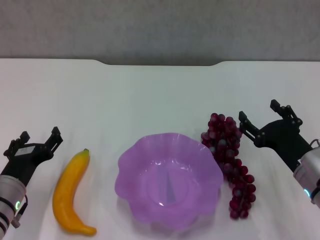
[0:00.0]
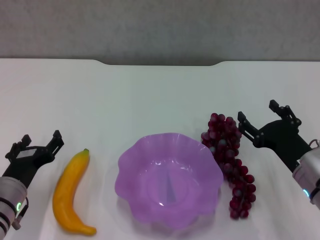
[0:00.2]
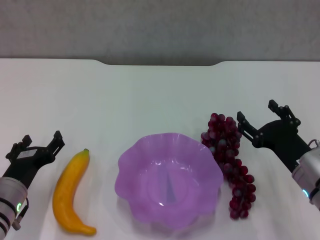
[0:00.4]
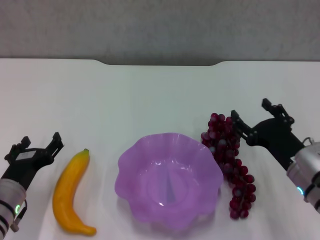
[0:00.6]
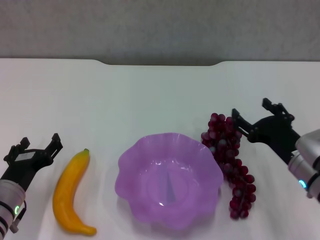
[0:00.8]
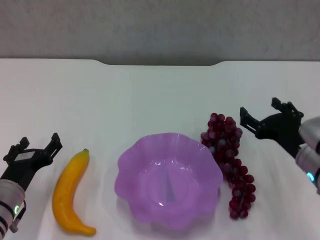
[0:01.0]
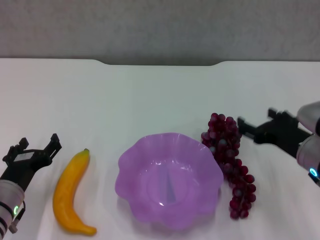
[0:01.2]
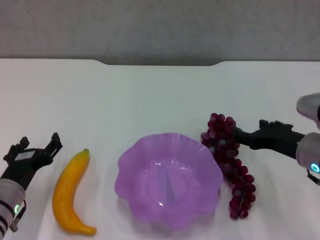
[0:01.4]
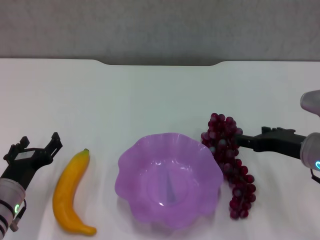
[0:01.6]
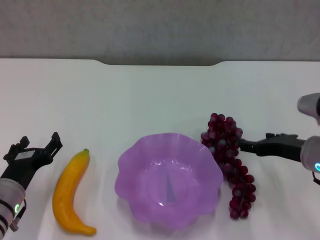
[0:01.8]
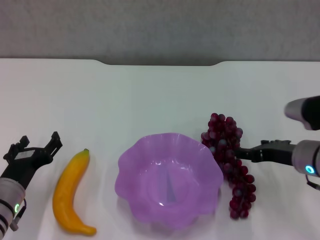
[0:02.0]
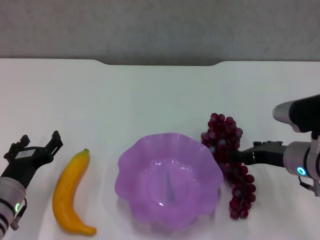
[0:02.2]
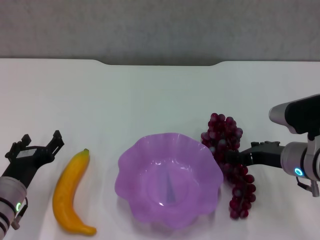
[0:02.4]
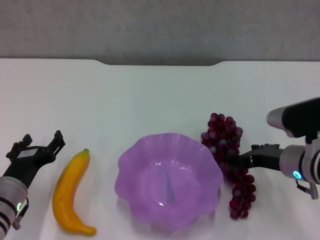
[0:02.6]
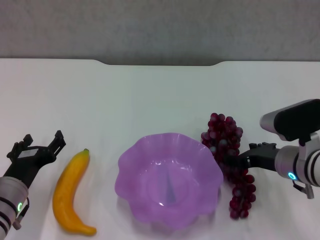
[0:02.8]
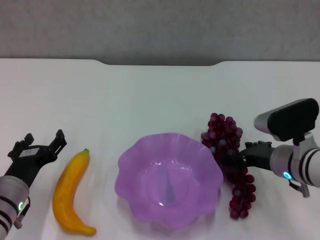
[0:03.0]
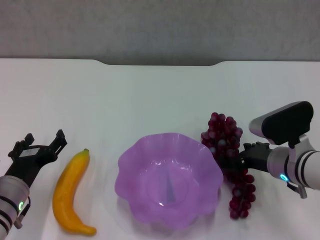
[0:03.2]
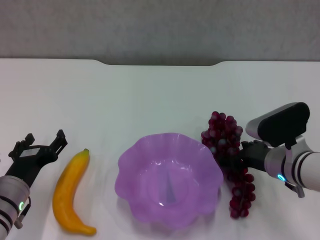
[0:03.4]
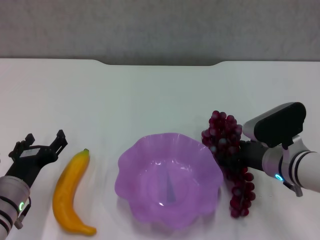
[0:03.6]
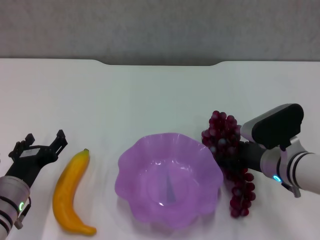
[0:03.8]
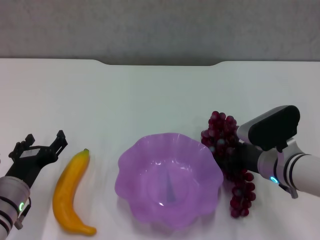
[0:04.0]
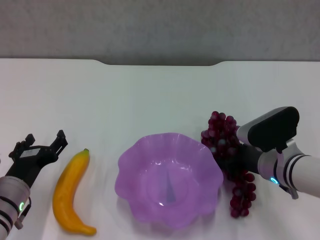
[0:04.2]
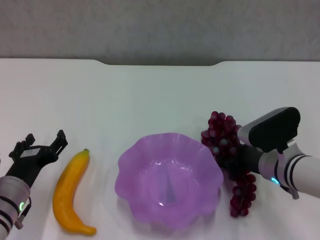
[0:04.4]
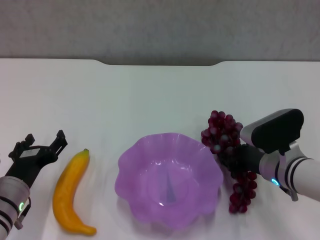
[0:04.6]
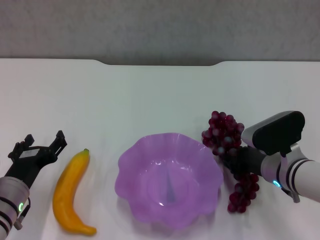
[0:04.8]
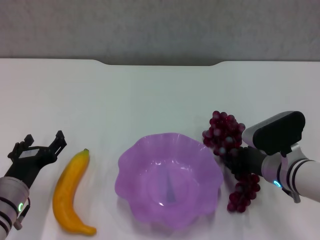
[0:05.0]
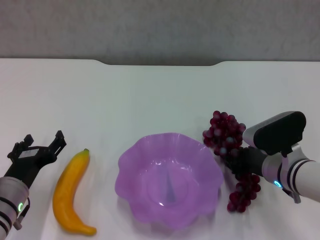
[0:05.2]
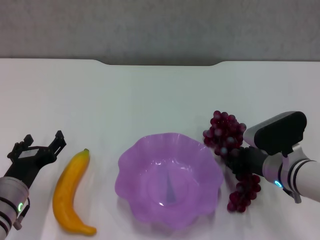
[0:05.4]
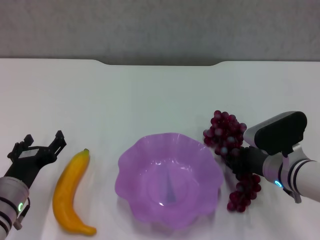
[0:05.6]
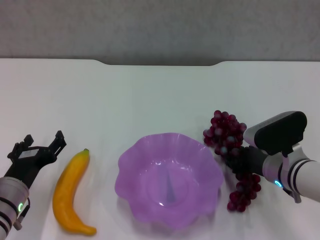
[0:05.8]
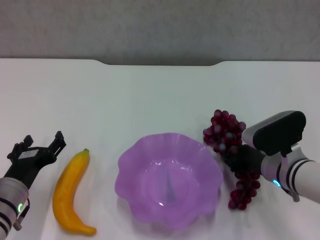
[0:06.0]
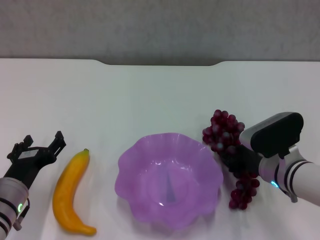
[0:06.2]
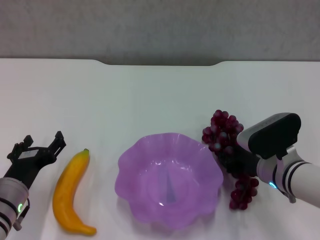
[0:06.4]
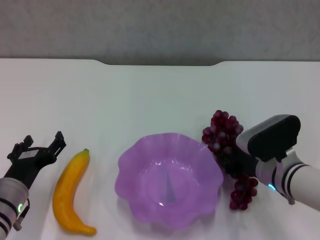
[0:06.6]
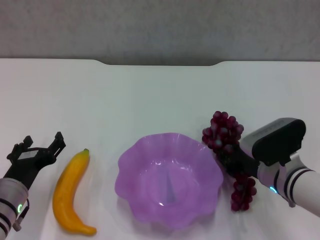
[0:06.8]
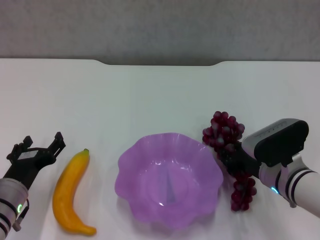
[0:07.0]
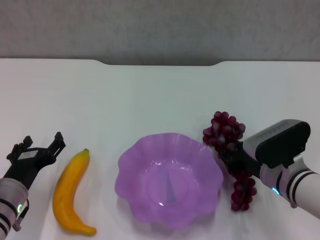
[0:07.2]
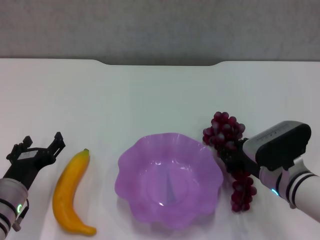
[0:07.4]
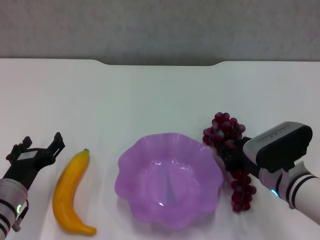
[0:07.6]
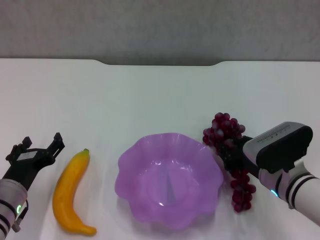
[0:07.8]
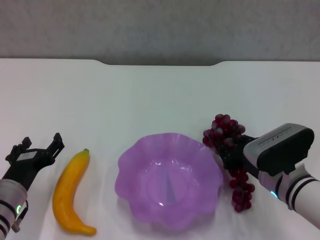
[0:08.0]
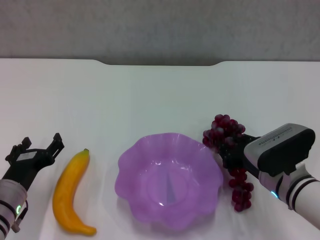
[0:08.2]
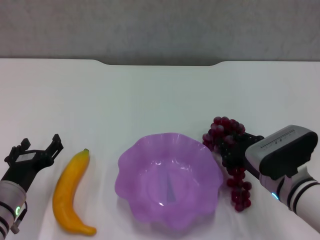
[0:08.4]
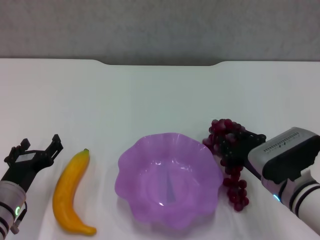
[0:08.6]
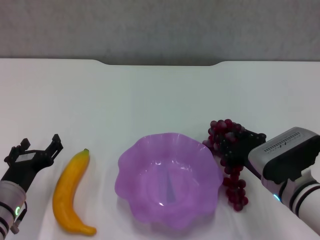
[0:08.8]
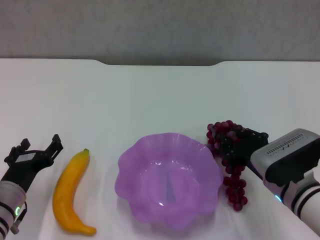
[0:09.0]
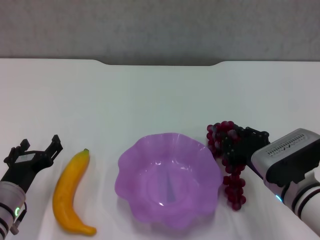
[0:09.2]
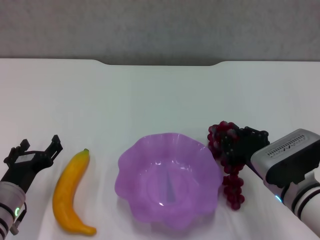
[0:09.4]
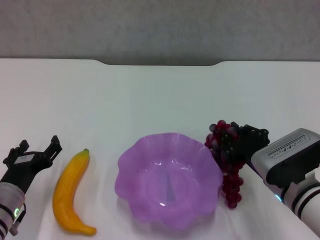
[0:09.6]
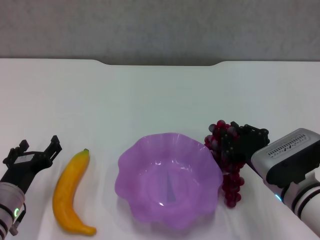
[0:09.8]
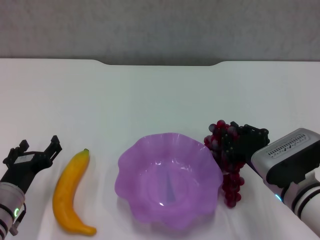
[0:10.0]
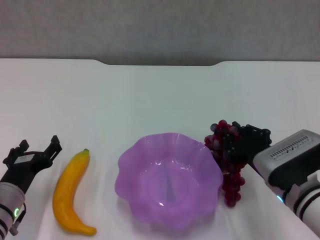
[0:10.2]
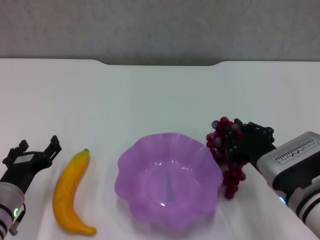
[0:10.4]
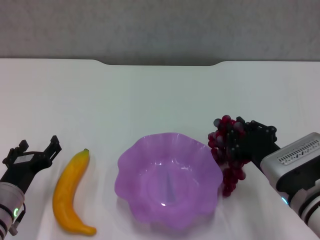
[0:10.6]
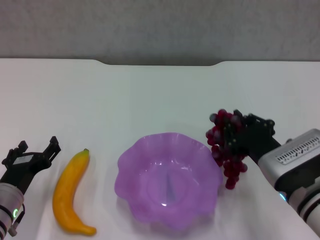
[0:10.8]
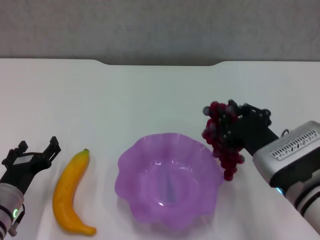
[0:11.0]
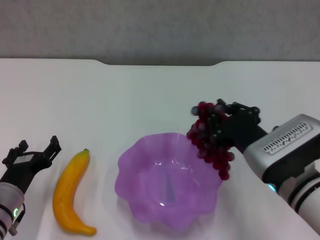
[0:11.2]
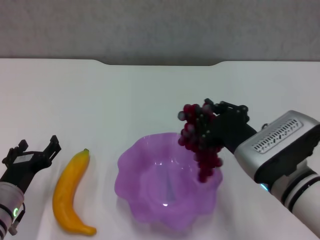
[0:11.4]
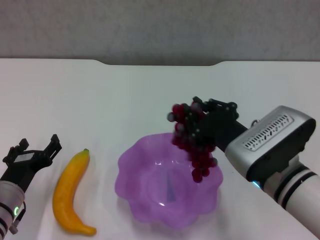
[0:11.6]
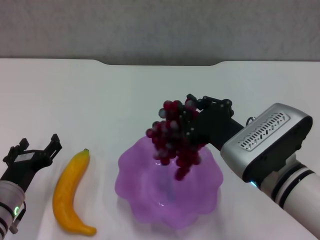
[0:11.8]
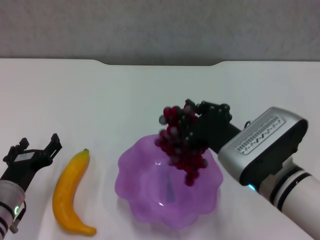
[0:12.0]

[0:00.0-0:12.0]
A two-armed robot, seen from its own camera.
Step, 0:00.0 to 0:05.2: Grasp the grape with right gripper.
0:00.0 to 0:01.6: The right gripper goes roughly 5 cm upward.
0:01.6 to 0:03.0: The right gripper changes place by roughly 5 cm.
0:03.0 to 0:04.4: There are only small adjustments of the grippers.
0:04.4 to 0:06.0: The right gripper closes up.
0:06.0 to 0:07.6: There are only small adjustments of the grippers.
0:07.6 to 0:10.4: The grippers move only a little.
0:10.4 to 0:12.0: The right gripper moves upward and to the left, approximately 10 cm.

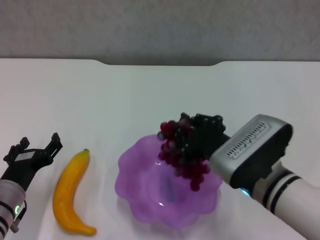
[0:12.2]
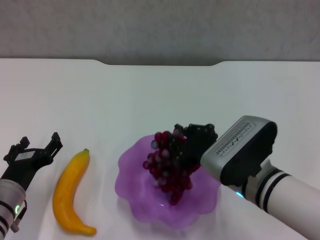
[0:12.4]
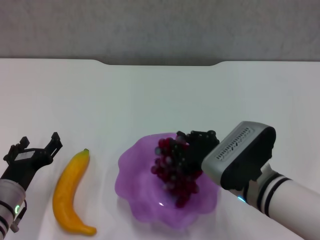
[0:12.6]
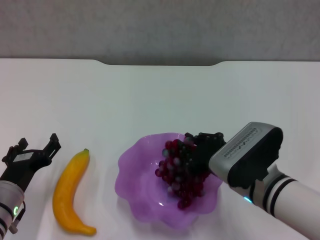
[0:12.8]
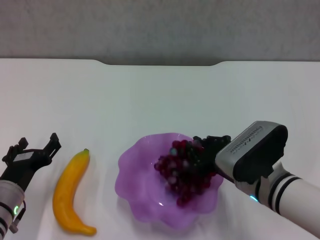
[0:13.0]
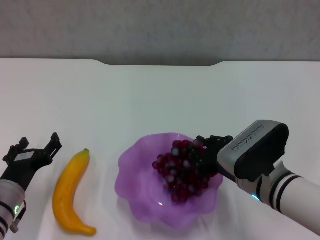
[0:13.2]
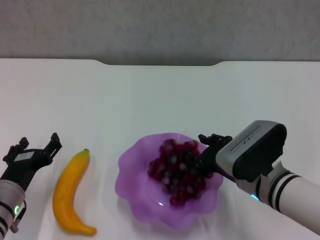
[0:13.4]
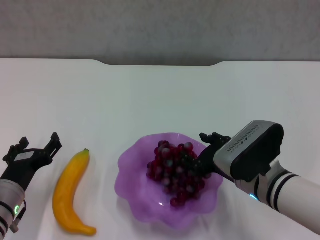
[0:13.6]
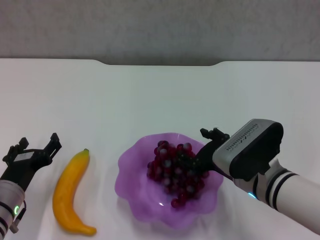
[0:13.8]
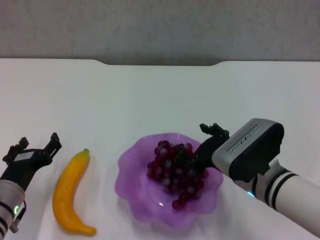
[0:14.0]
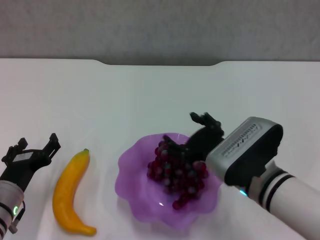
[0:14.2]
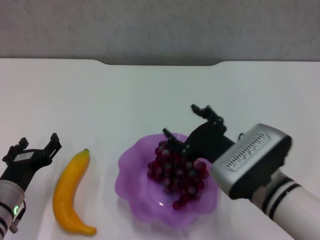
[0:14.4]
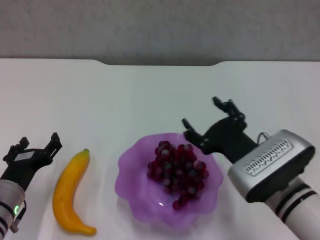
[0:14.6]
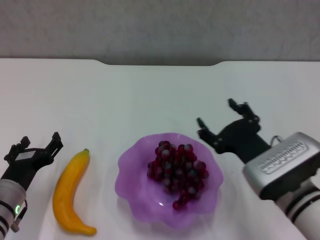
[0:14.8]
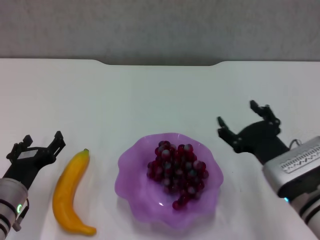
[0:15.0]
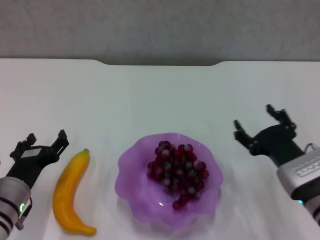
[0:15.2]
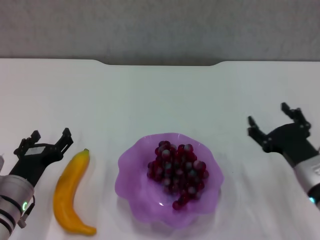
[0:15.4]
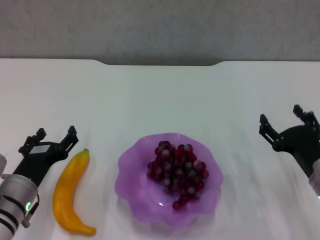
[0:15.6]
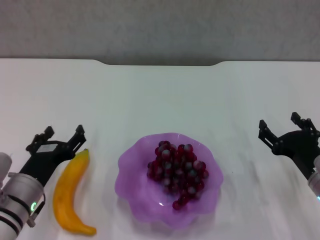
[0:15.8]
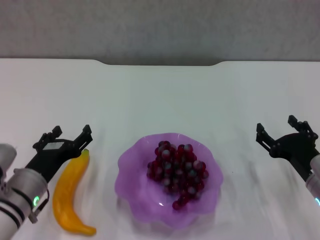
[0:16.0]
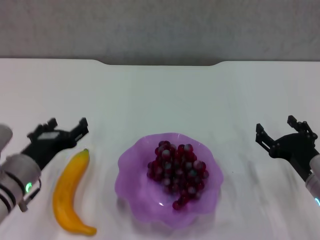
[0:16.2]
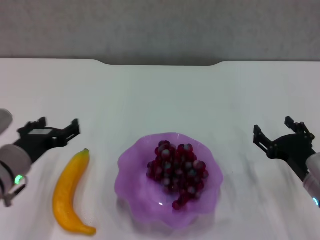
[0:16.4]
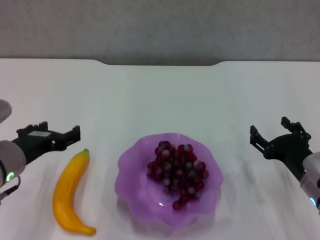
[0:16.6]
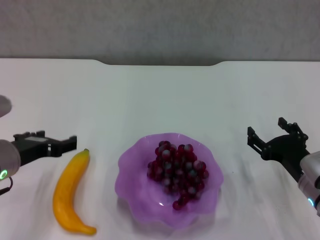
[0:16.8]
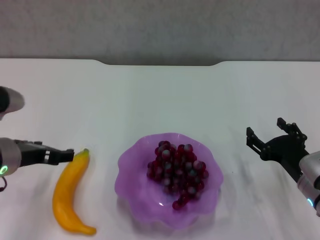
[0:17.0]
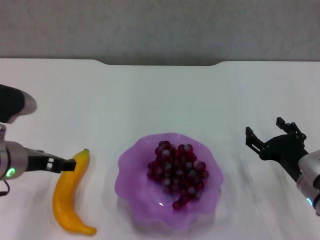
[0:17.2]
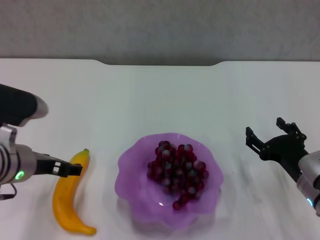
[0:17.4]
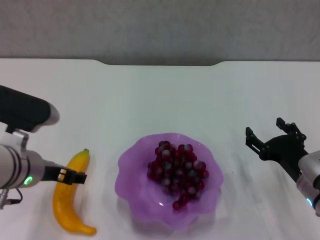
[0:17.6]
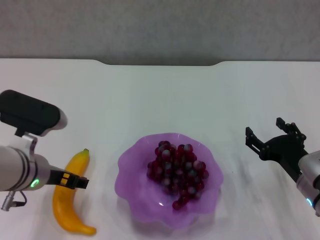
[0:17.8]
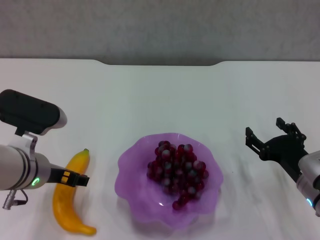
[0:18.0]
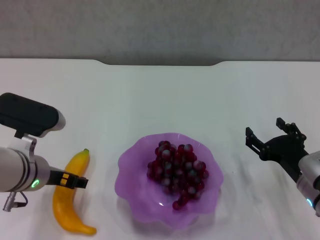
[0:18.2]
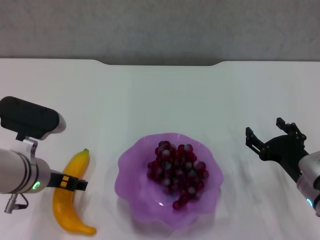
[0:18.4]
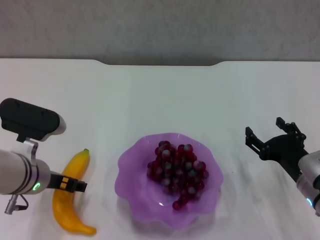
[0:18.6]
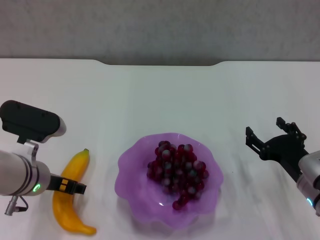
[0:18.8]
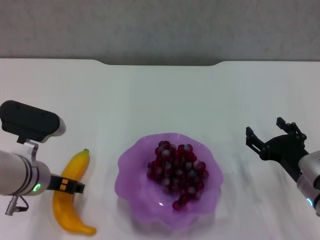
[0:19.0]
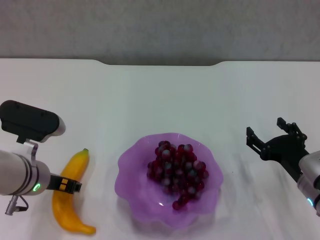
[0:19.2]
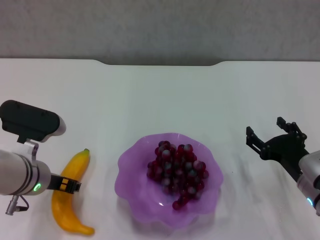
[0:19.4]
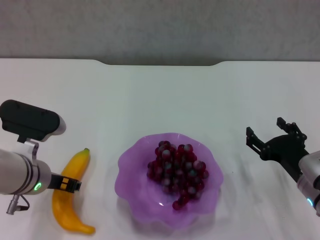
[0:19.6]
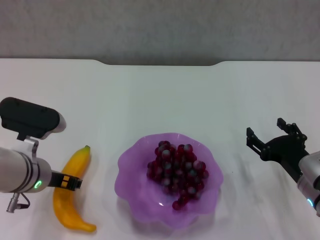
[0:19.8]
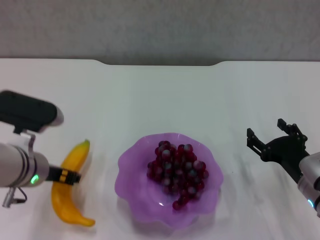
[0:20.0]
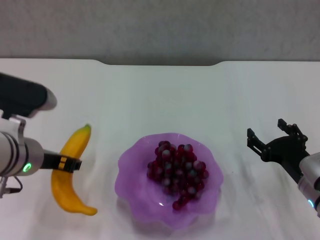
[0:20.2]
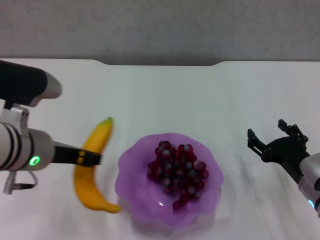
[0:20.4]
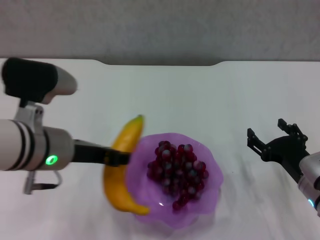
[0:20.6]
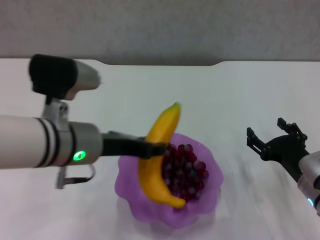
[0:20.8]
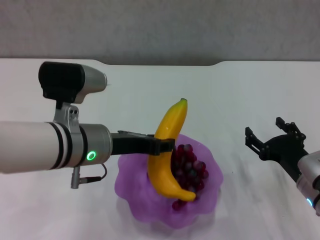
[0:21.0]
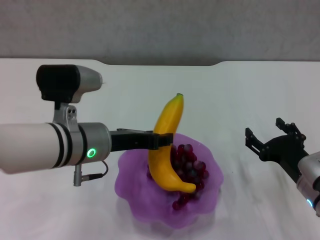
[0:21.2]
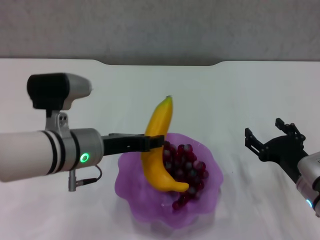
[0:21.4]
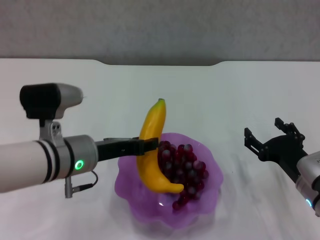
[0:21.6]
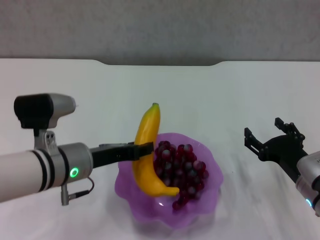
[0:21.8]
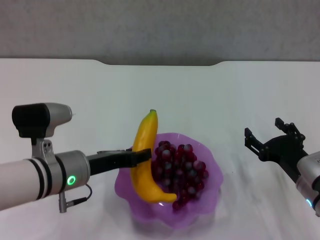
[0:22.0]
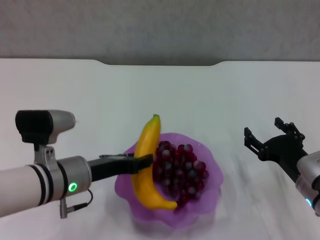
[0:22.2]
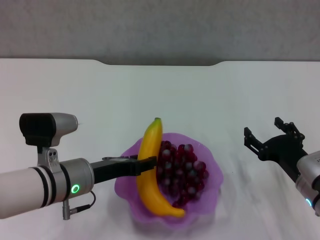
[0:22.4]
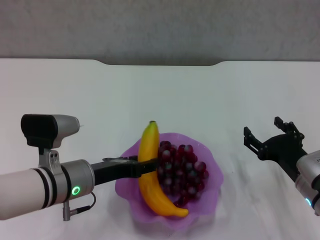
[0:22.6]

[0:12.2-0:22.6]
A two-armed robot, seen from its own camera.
Step, 0:12.2 to 0:14.4: Place the grape in the purple plate with right gripper.
Step, 0:14.6 to 0:19.2: Grasp the banana with left gripper.
0:12.2 to 0:13.6: The right gripper opens its fingers.
0:13.6 to 0:15.2: The right gripper moves to the right, about 5 cm, and opens.
0:15.2 to 0:16.6: The left gripper travels upward by some 10 cm.
0:18.2 to 0:19.6: The left gripper closes its fingers.
0:19.6 to 0:21.2: The left gripper travels to the right and upward by roughly 10 cm.
0:21.2 to 0:22.6: The left gripper is displaced downward by approximately 5 cm.
